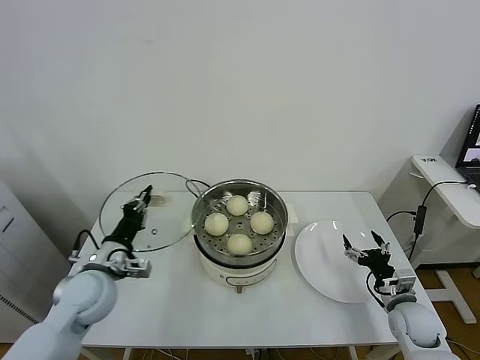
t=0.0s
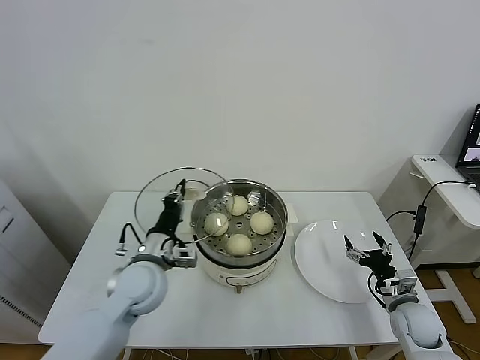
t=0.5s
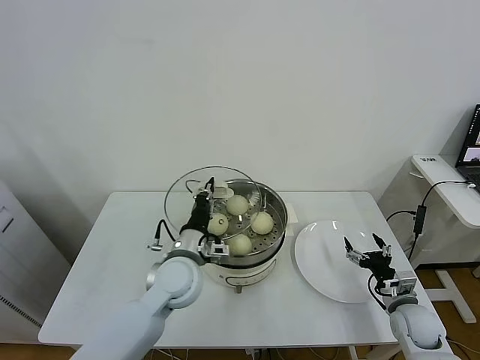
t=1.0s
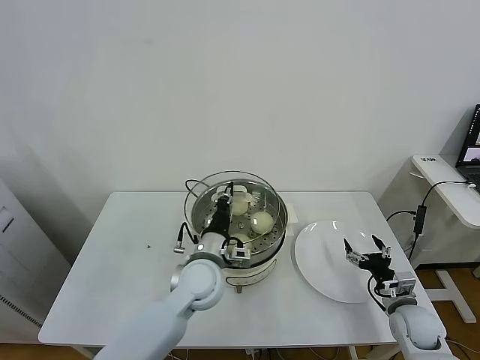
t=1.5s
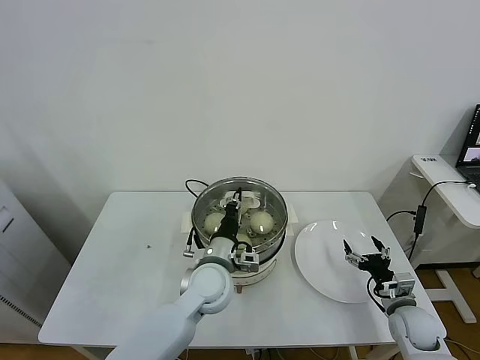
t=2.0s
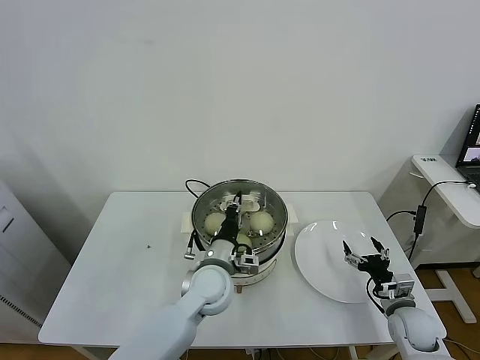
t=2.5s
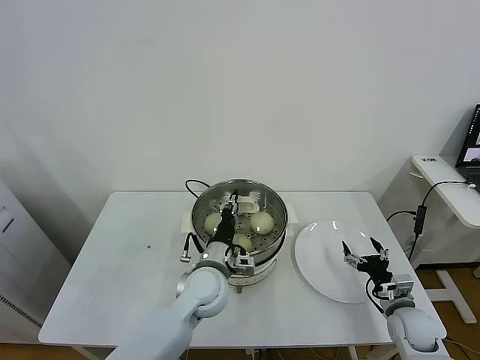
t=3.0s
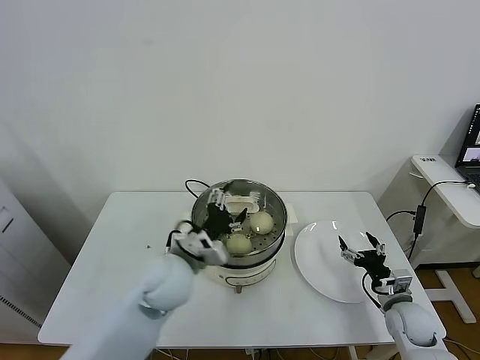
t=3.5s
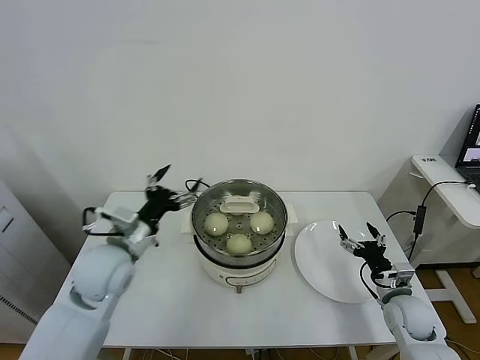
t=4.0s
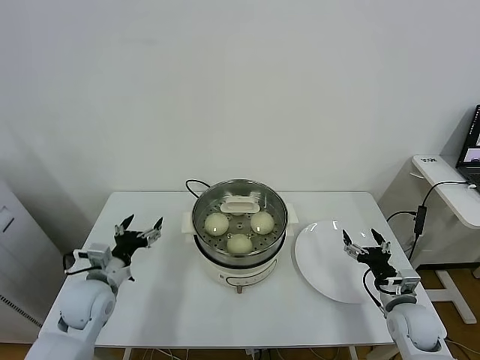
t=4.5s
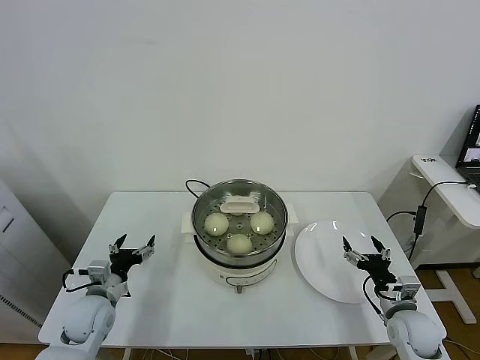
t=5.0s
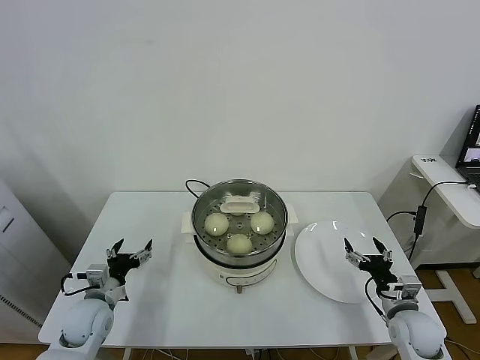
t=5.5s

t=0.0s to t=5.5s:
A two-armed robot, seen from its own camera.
Task of the whole recording: take steamed baozi put them in steamer.
Step, t=0.0s to t=3.5s: Place the pot lid on the steamer with left gripper.
t=0.0s to t=2.0s: The left gripper heads to the right, covering about 25 cm.
t=2.0s to t=3.5s: The left gripper travels to the left and upward by roughly 10 cm, and opens up.
t=3.5s to t=5.5s: The left gripper travels to the left and downward by about 25 cm.

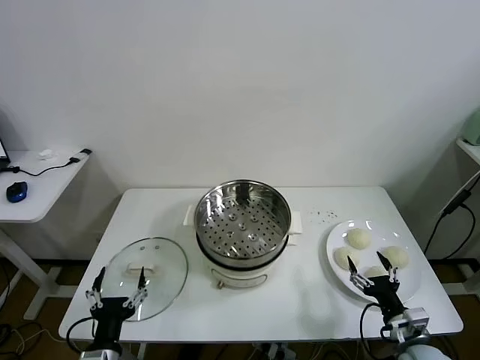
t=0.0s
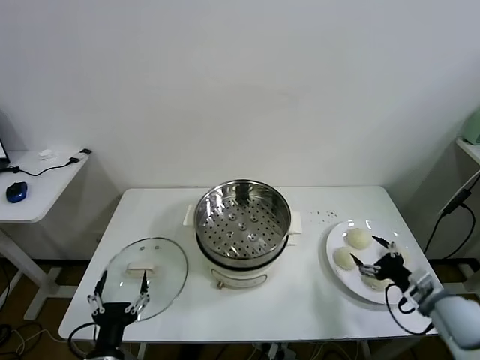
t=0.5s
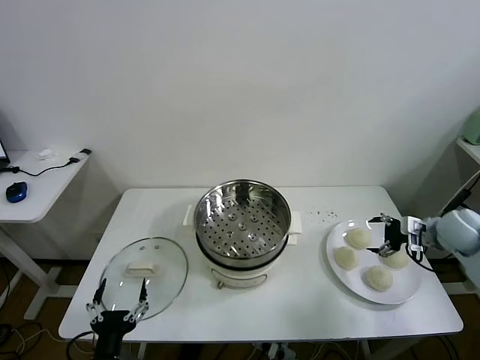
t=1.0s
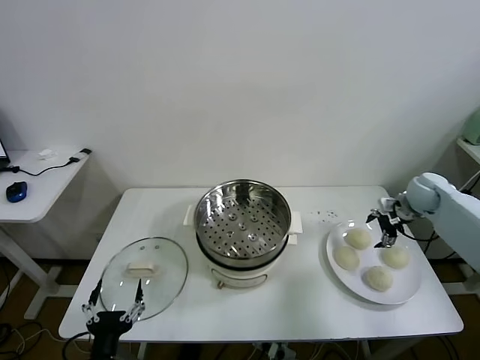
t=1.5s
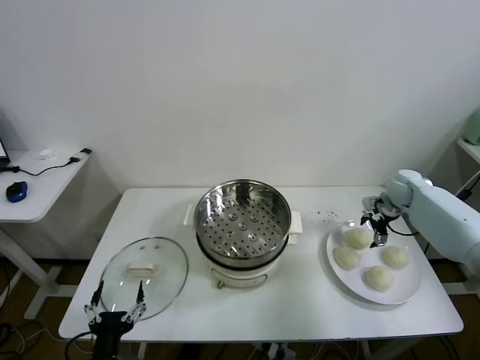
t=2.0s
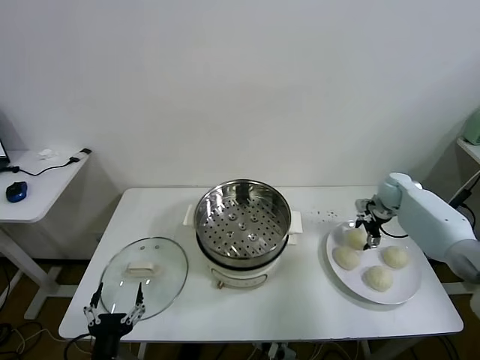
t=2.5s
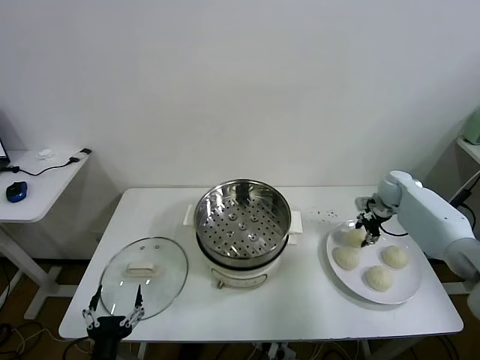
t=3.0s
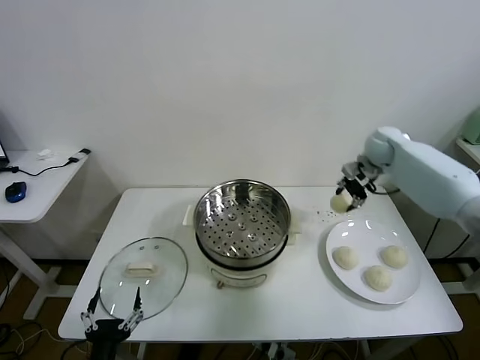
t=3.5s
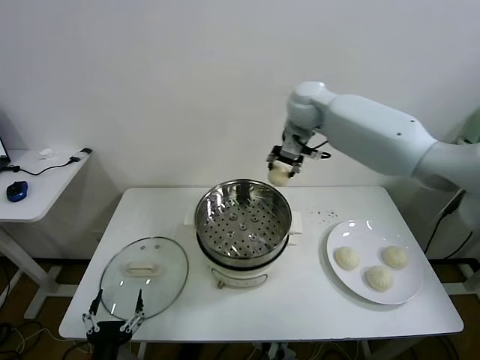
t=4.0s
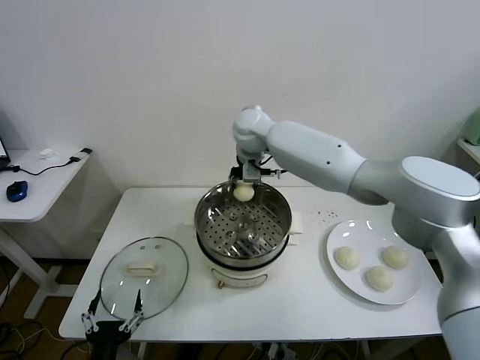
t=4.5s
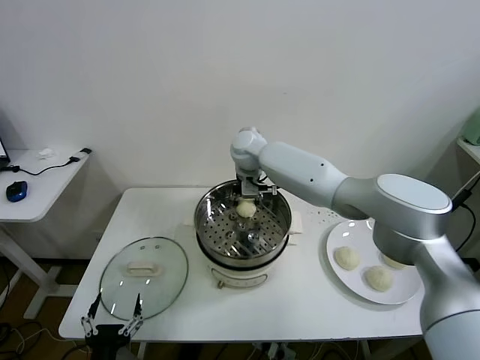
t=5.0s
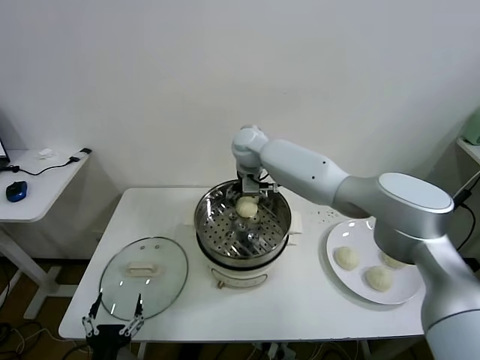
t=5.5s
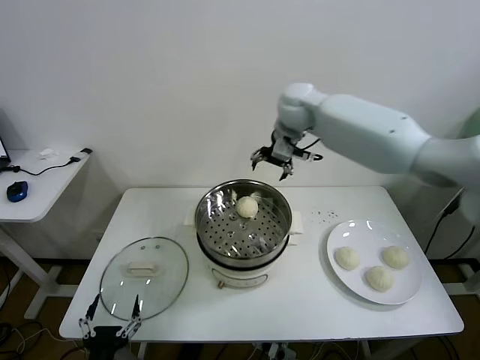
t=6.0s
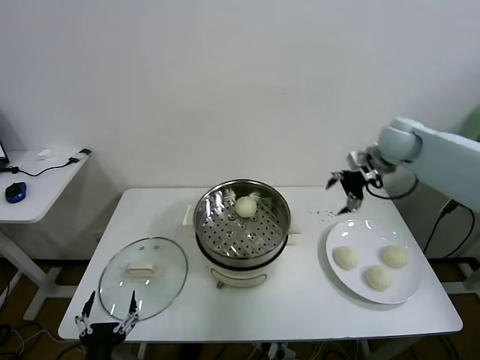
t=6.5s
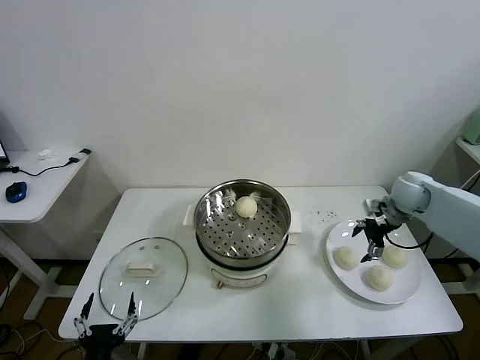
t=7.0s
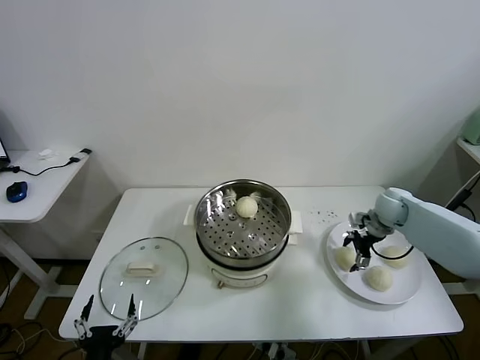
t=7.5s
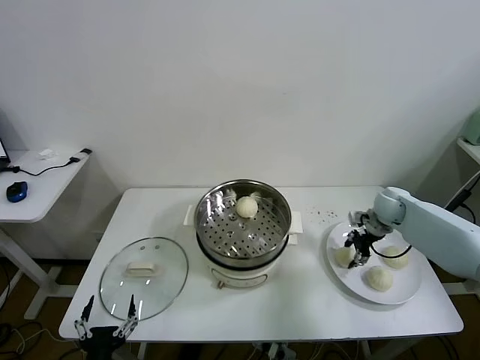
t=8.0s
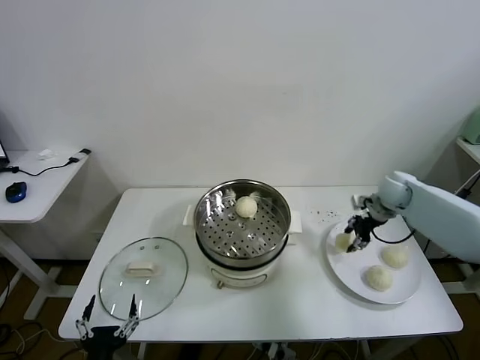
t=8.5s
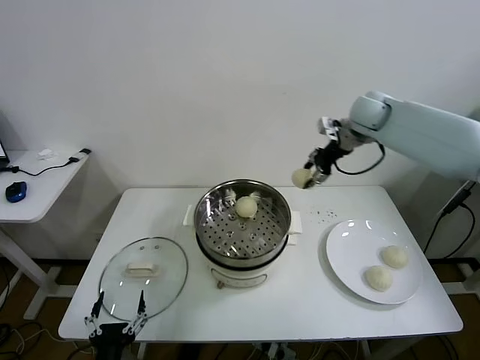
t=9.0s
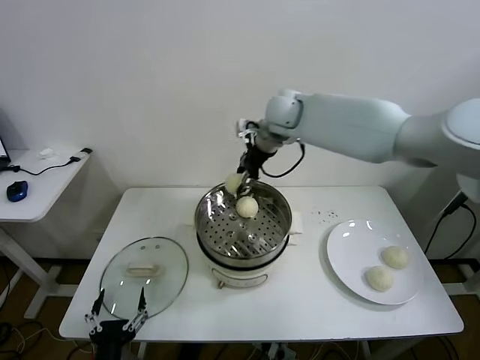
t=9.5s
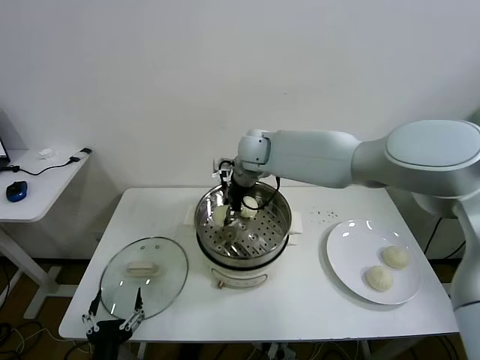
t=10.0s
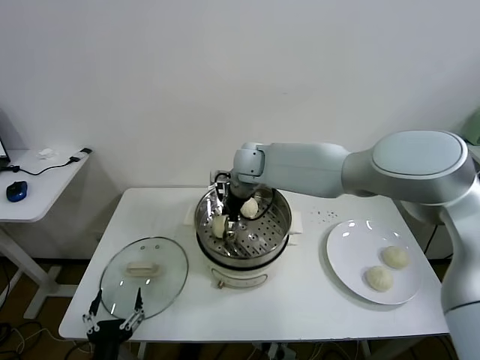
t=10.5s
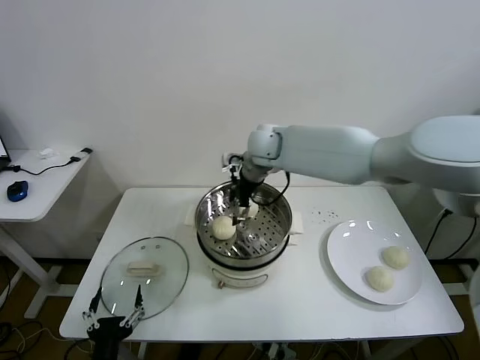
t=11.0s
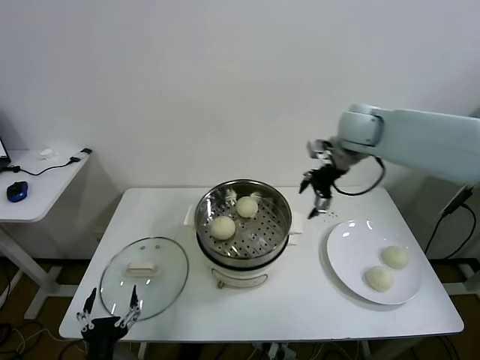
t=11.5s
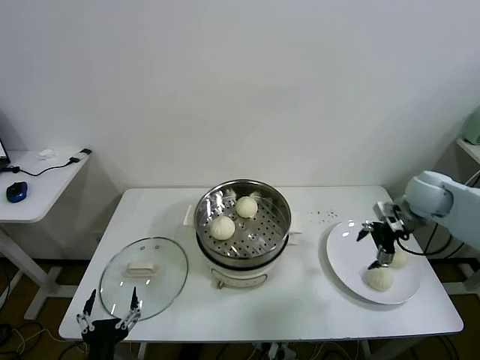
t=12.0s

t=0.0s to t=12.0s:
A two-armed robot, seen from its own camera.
Task of the whole recording: take steamed baozi put them in steamer.
Step, t=0.0s to t=2.5s: Grasp the baozi in the plate with right gripper.
Step, t=3.0s to t=5.5s: Place the baozi on the steamer with right gripper.
Step, t=6.0s to t=8.0s: Grasp the baozi in the plate with right gripper.
Step, t=8.5s to t=10.5s: Place the baozi on the steamer with right gripper.
t=2.0s to t=4.0s: The right gripper heads to the left and upward, covering about 40 cm, and closes.
t=4.0s to t=6.0s: The right gripper is displaced to the right by roughly 5 cm, and opens its fingers.
t=6.0s to t=8.0s: The right gripper shifts some 35 cm downward and to the right, and closes its fingers.
t=8.0s to t=10.0s: The right gripper moves to the left and upward, some 40 cm.
t=10.0s to t=12.0s: The right gripper is displaced to the right by approximately 40 cm, and opens.

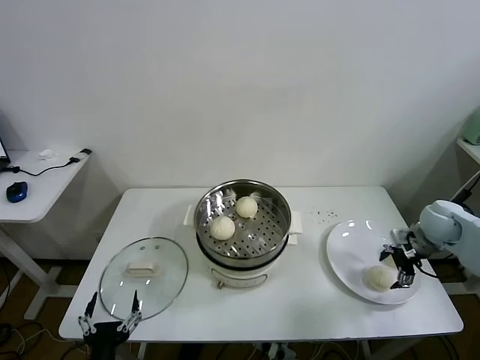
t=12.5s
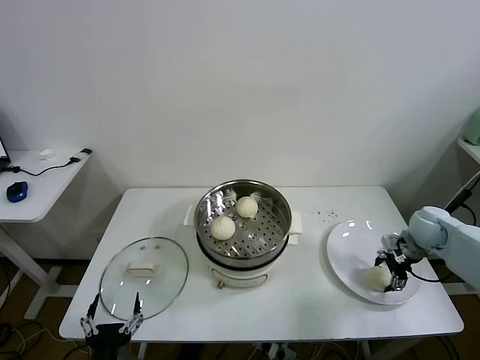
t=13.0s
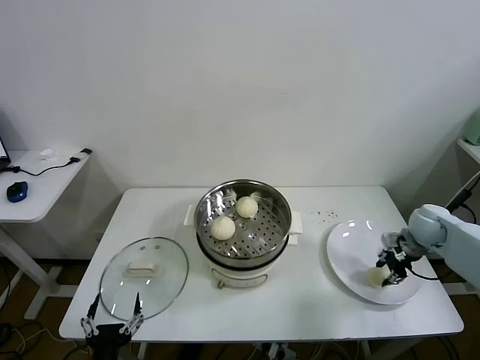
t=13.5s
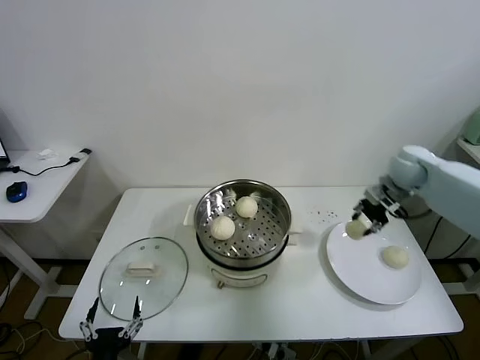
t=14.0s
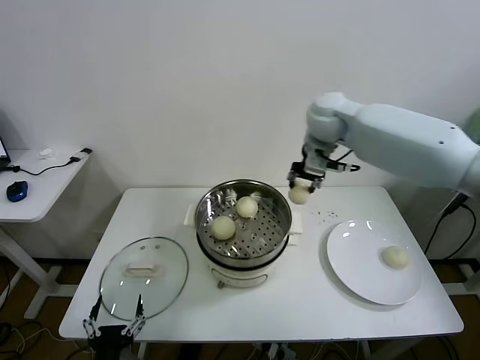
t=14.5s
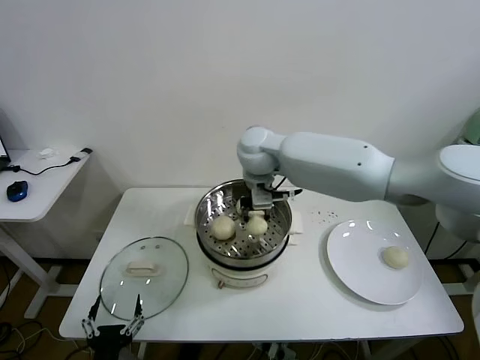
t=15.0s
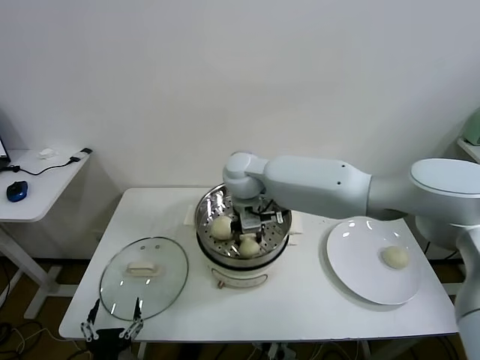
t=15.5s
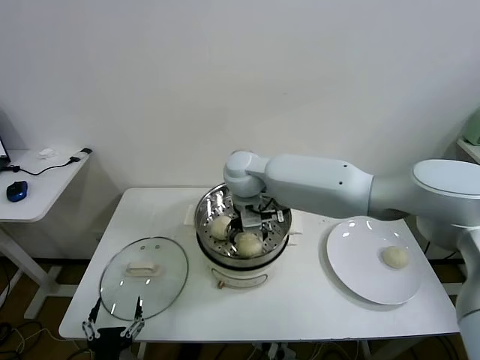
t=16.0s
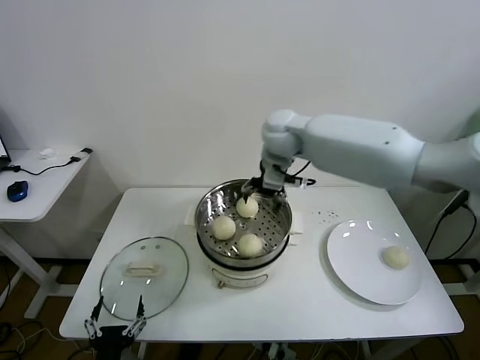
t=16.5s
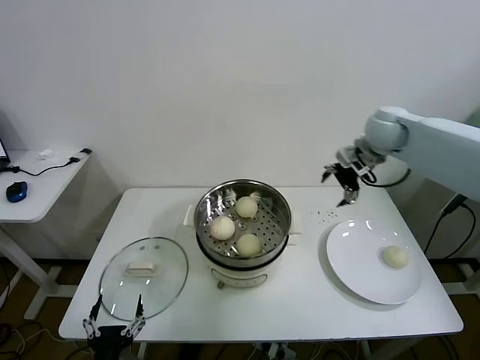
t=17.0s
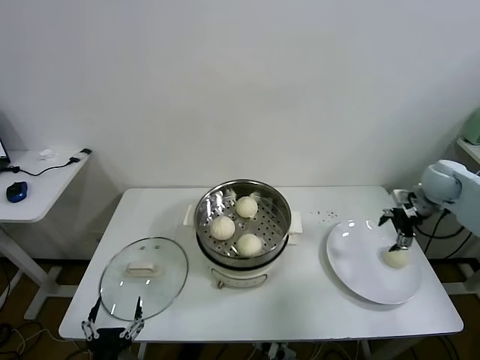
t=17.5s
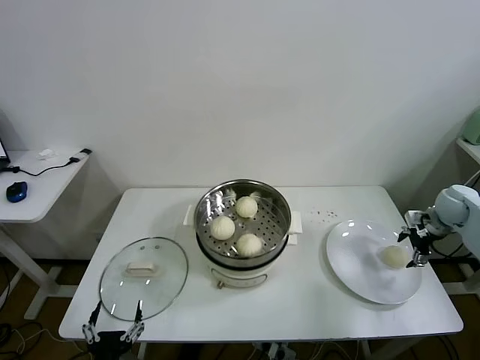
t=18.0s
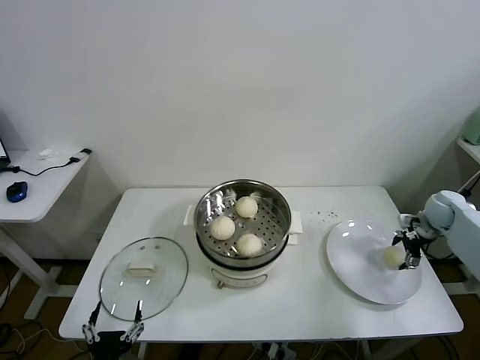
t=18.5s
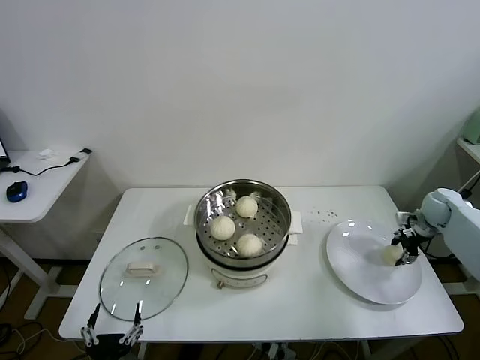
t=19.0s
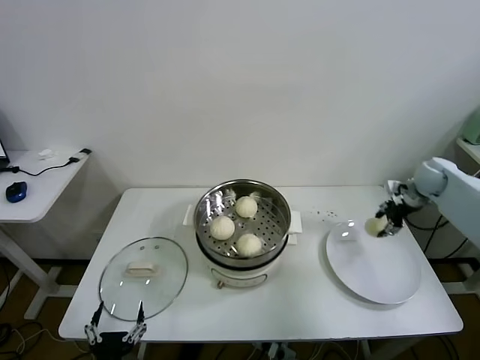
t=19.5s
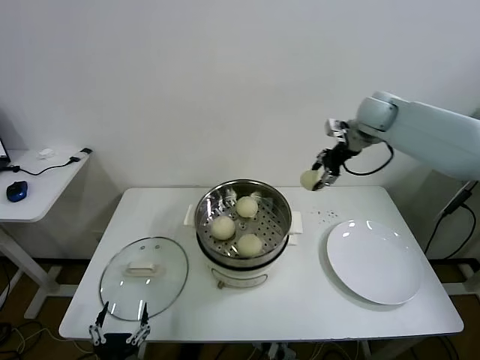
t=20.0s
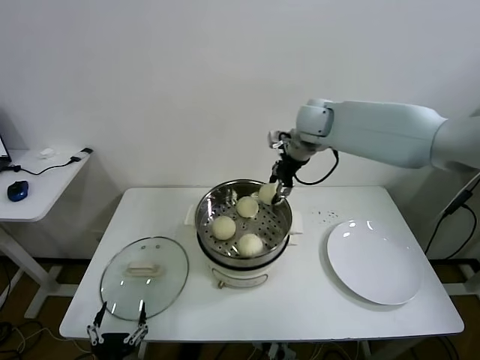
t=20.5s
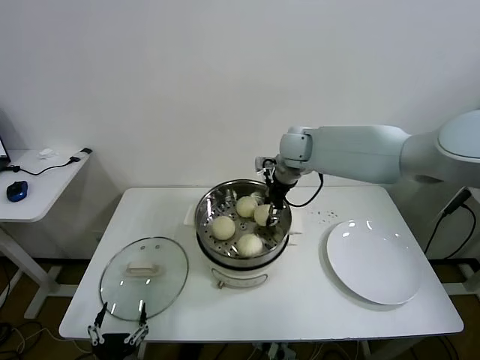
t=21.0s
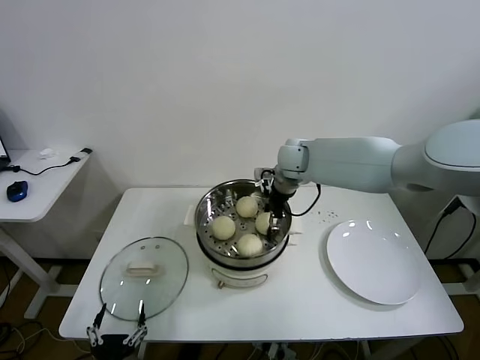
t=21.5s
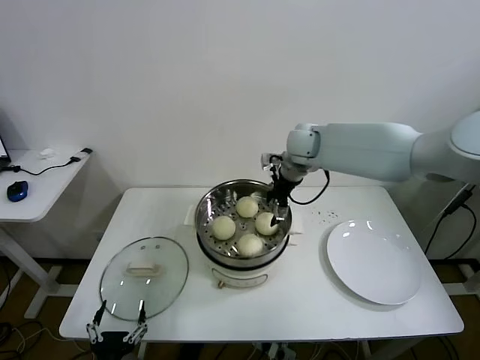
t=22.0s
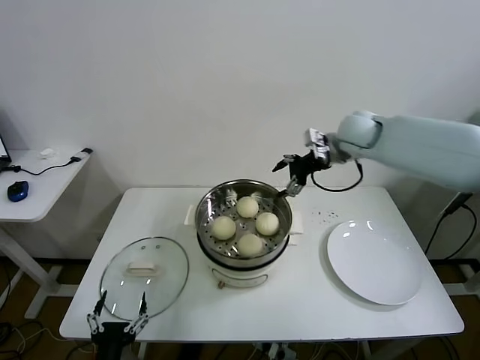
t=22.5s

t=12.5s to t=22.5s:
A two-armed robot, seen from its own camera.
Task of the whole recording: take steamed baozi put them in steamer.
Step, t=13.5s to t=16.0s: Place the baozi on the steamer with right gripper.
Step, t=16.5s to t=18.5s: Grasp the baozi in the plate with right gripper.
Step, t=19.0s to t=22.0s: Place the baozi on the steamer with right gripper.
t=12.5s to t=14.5s: The right gripper is displaced to the left and upward by approximately 40 cm, and closes.
t=14.5s to t=16.5s: The right gripper travels to the left and back again, approximately 15 cm each way, and opens its fingers.
t=16.5s to t=18.5s: The right gripper is displaced to the right and downward by some 50 cm.
t=18.5s to t=20.5s: The right gripper heads to the left and upward, covering approximately 40 cm, and closes up.
t=20.5s to t=22.5s: The right gripper travels to the right by approximately 10 cm, and opens up.
